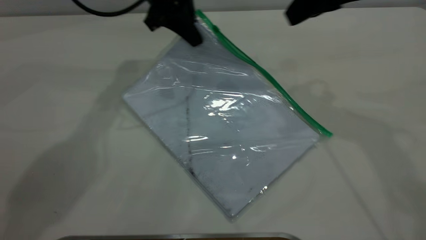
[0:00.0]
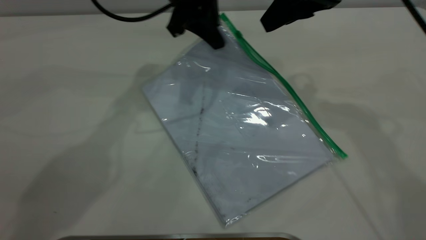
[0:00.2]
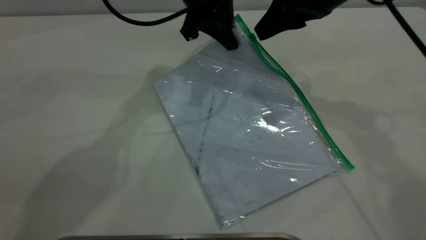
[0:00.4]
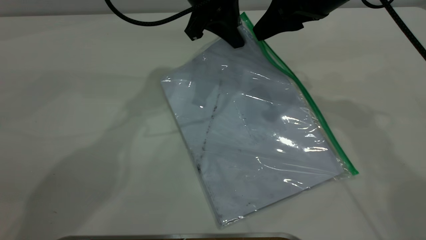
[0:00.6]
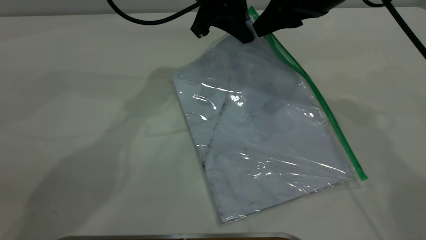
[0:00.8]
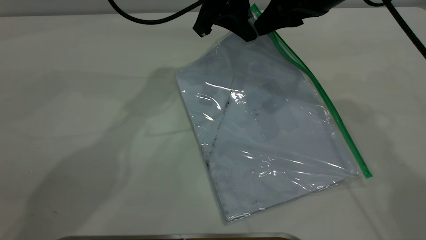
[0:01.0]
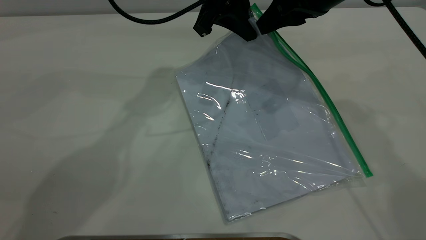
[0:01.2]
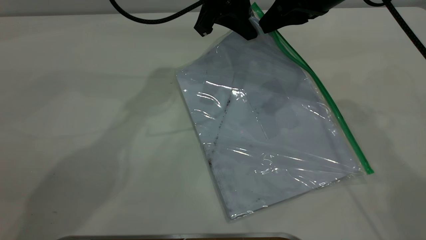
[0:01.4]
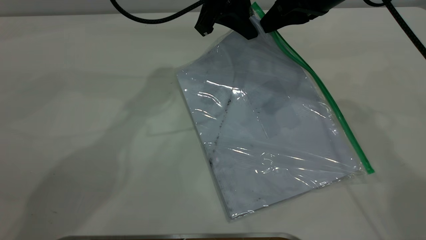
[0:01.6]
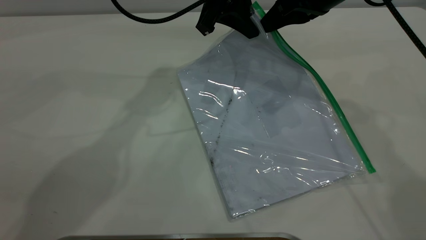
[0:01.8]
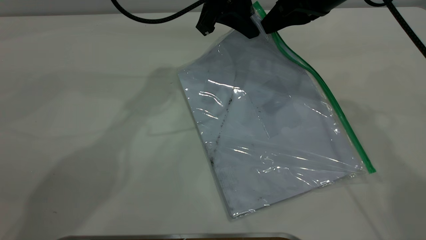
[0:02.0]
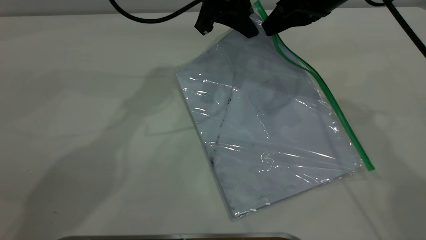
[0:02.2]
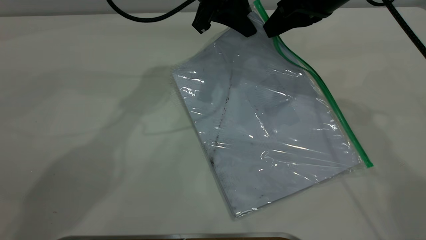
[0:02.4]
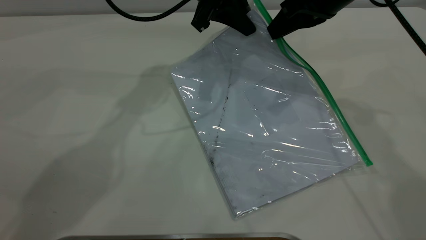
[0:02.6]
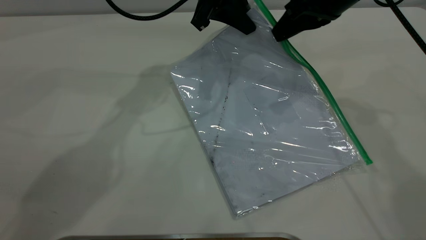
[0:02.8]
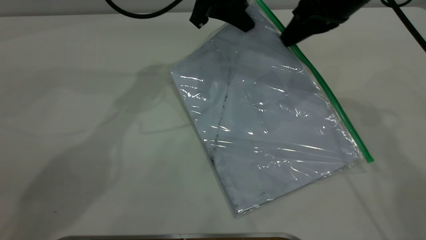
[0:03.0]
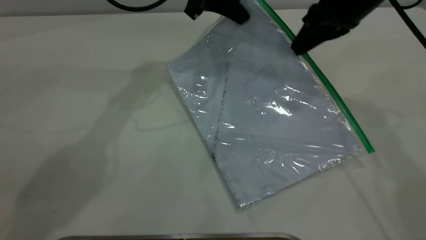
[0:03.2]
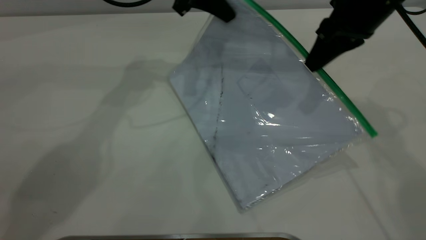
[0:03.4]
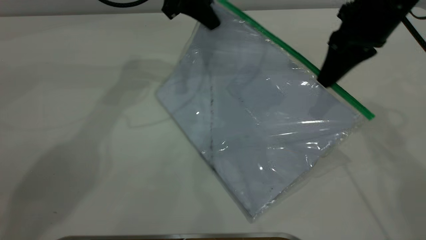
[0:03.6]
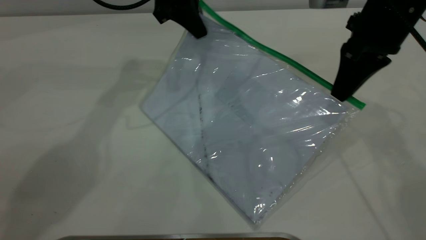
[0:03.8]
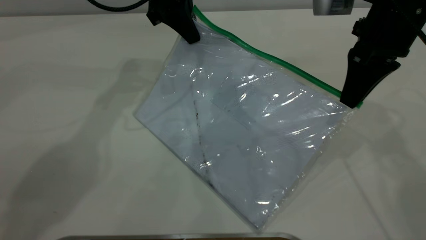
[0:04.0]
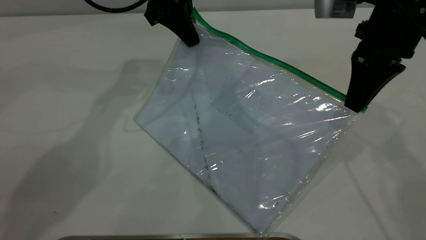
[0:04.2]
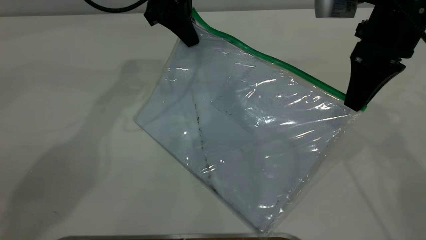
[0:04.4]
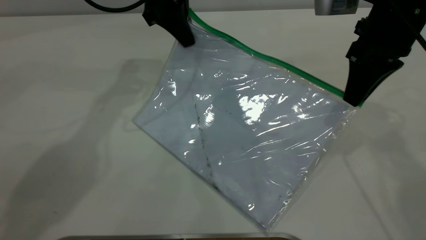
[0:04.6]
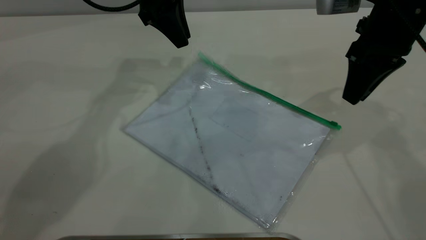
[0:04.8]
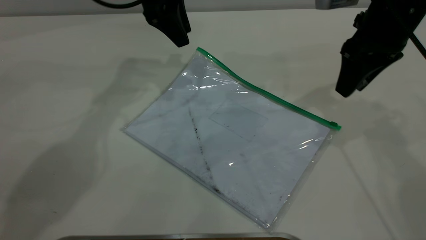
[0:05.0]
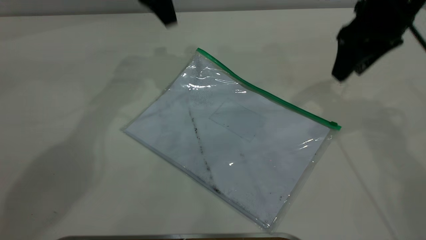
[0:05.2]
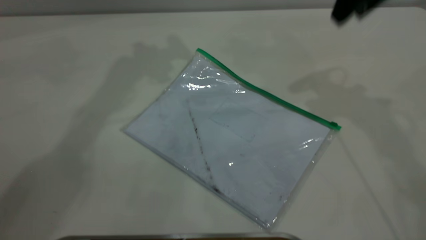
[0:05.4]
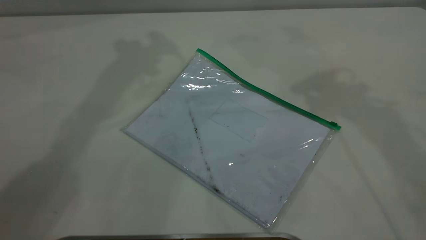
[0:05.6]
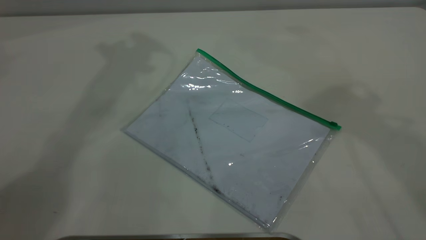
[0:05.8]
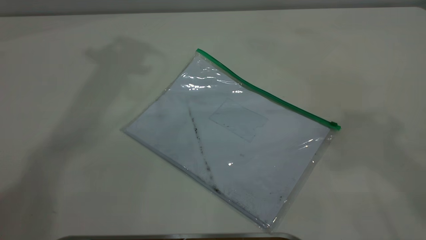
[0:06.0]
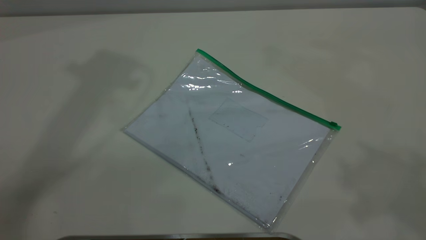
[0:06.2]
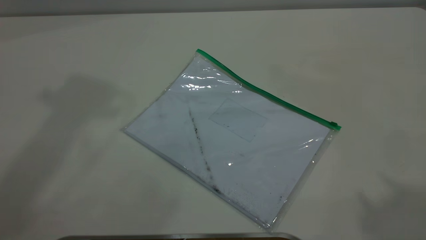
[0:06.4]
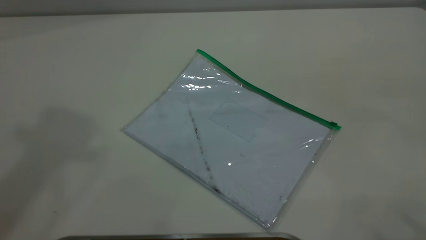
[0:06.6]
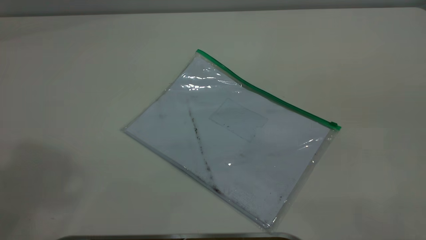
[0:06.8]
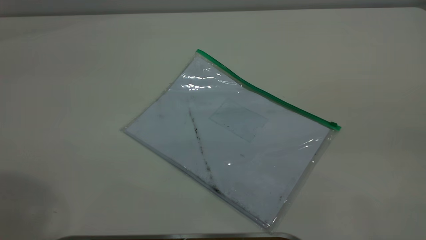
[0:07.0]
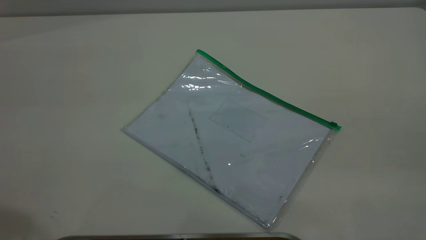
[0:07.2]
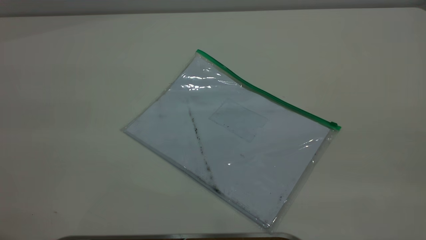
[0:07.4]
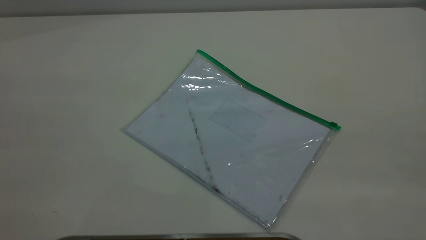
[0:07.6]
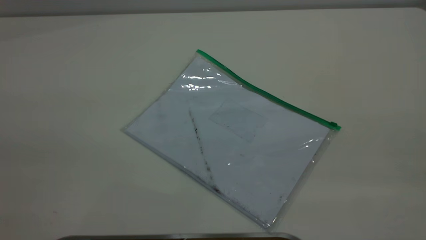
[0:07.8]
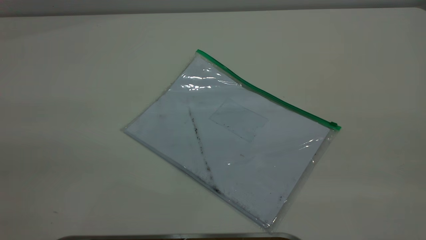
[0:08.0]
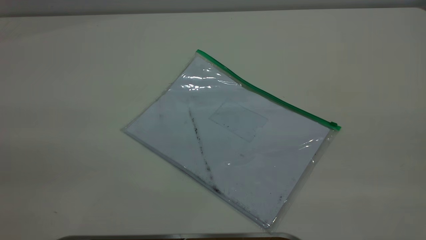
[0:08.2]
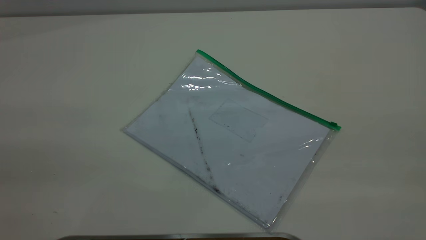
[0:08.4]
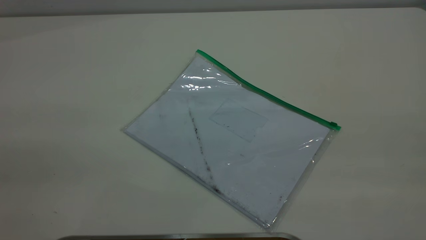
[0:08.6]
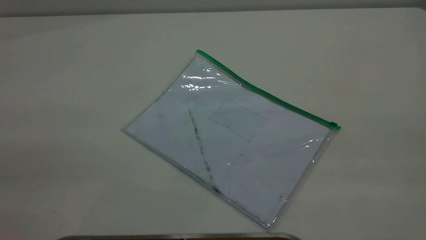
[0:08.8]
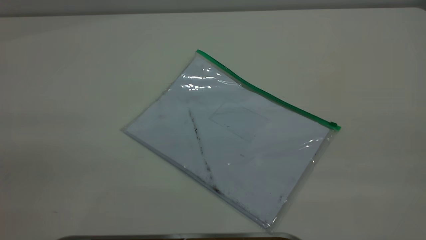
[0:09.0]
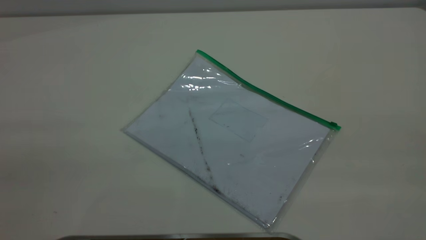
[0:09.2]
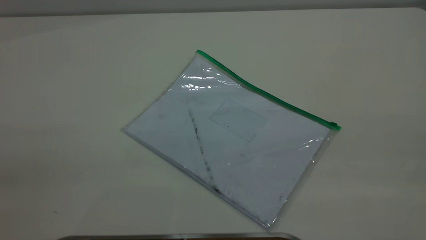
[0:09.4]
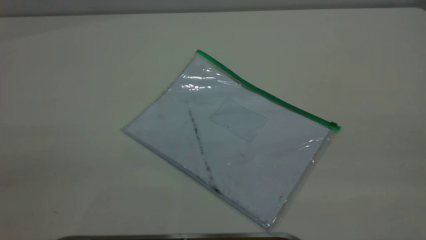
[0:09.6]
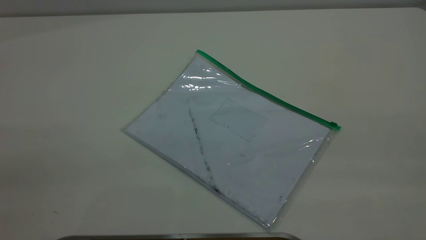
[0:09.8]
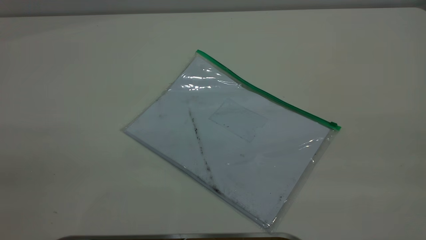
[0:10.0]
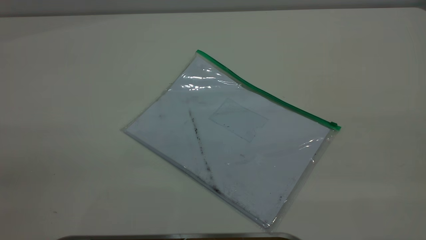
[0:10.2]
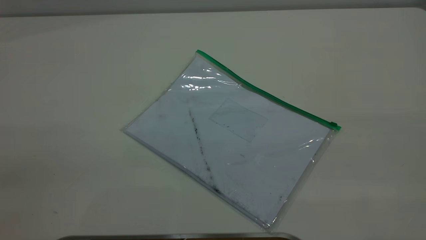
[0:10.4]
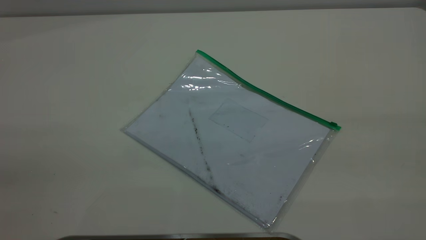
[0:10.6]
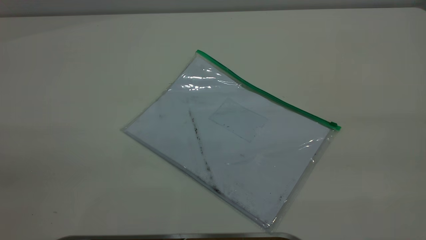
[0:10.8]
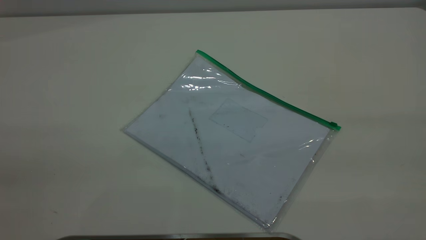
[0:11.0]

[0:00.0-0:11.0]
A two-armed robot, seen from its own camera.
Step, 0:00.0 to 0:04.6: Pulling up the zipper on the transparent plastic bag with the right gripper to close it.
Step, 0:04.8 to 0:05.0: Place the transparent plastic bag.
0:00.0 to 0:01.6: The left gripper heads to the right, covering roughly 5 cm. The right gripper shifts by about 5 cm, and closes its fingers.
0:01.6 to 0:03.2: The grippers move only a little.
0:03.2 to 0:04.8: The right gripper opens. Meanwhile the left gripper travels to the left by roughly 5 cm, and opens.
0:04.8 to 0:06.2: The right gripper is displaced upward and backward by about 40 cm, and opens; the left gripper goes roughly 35 cm upward, and opens.
